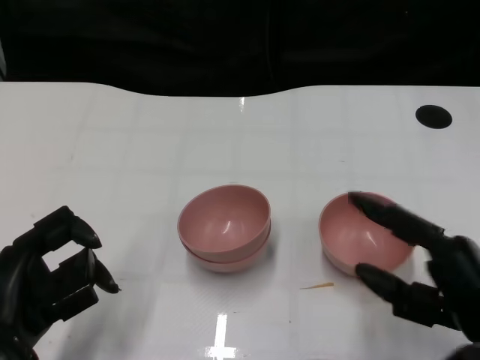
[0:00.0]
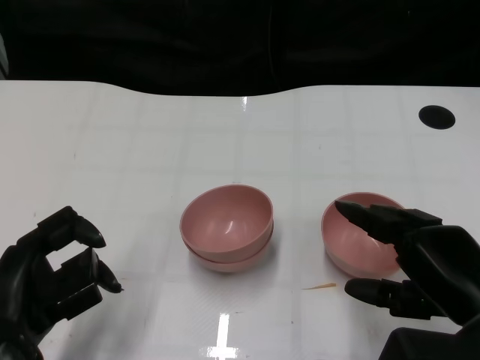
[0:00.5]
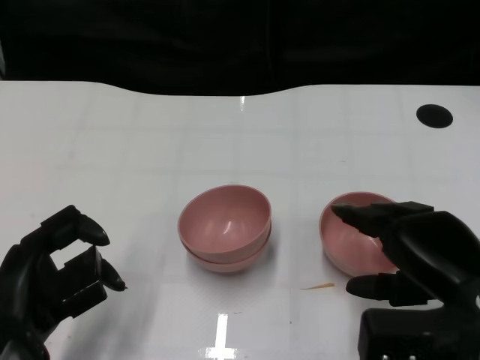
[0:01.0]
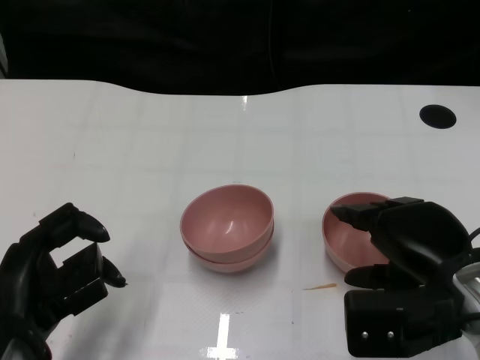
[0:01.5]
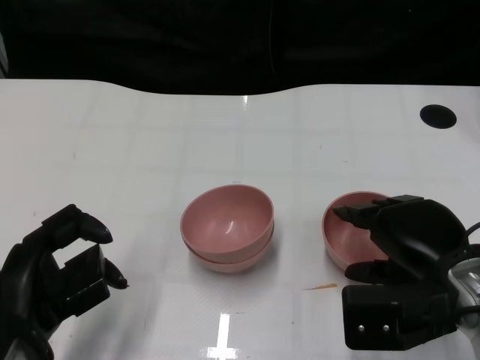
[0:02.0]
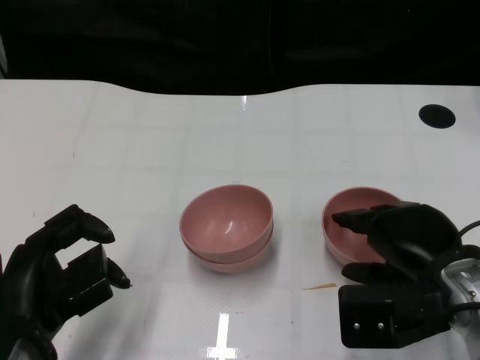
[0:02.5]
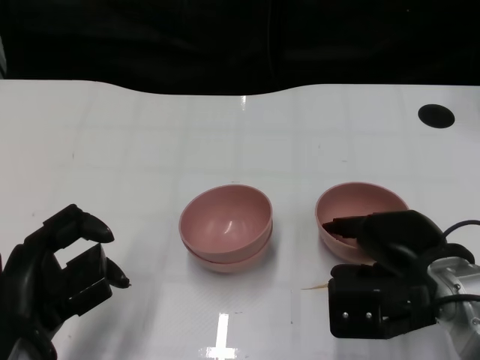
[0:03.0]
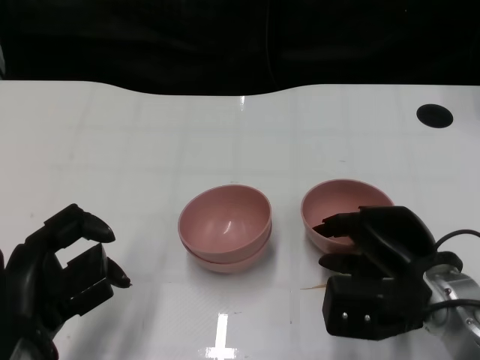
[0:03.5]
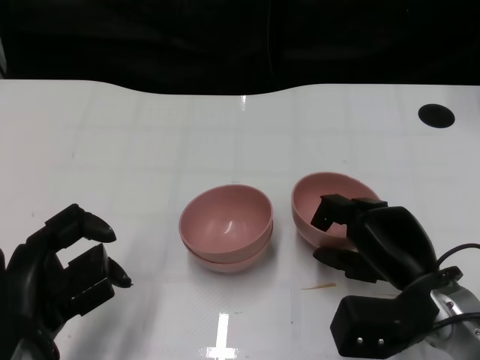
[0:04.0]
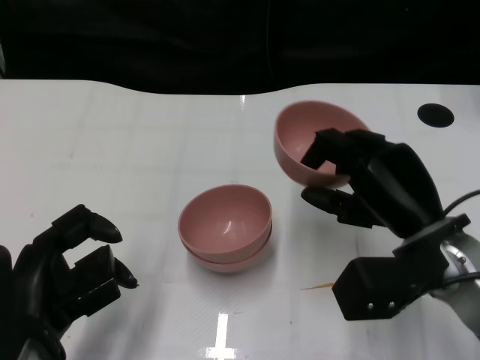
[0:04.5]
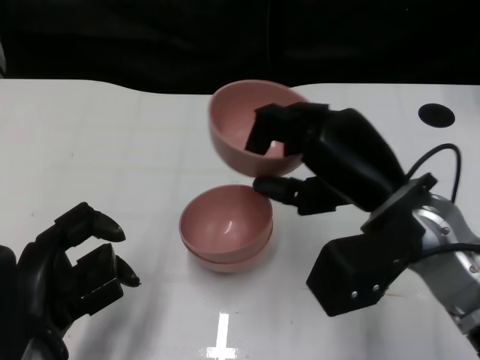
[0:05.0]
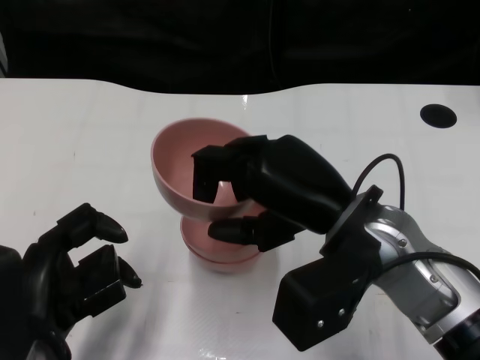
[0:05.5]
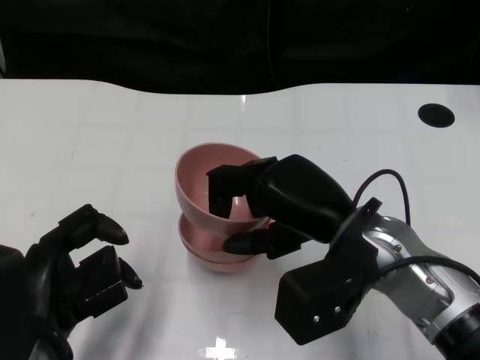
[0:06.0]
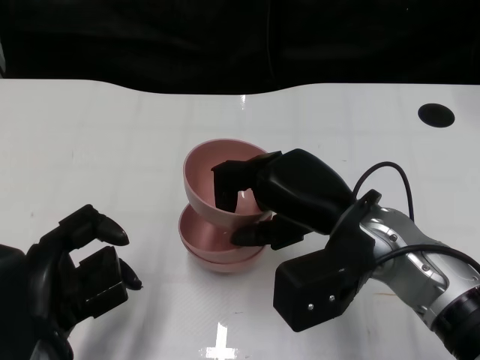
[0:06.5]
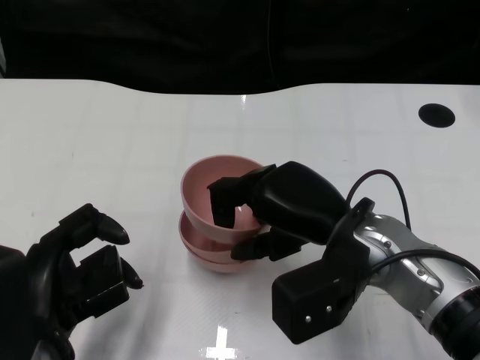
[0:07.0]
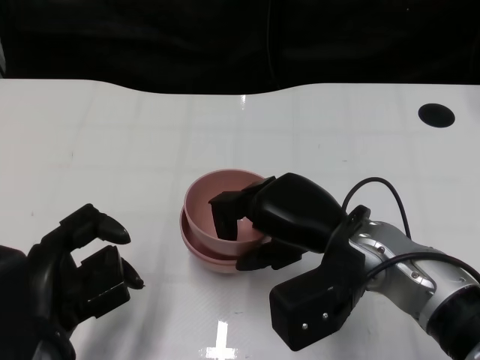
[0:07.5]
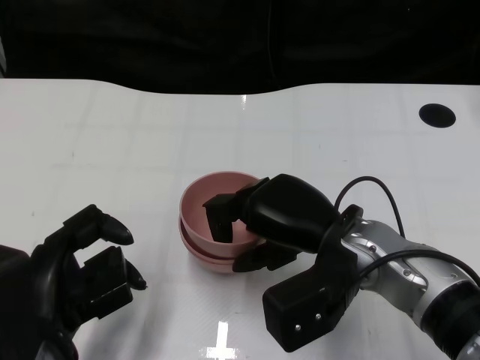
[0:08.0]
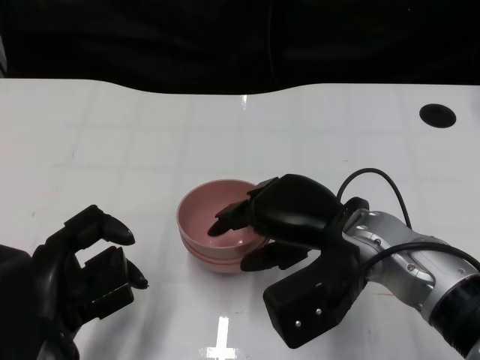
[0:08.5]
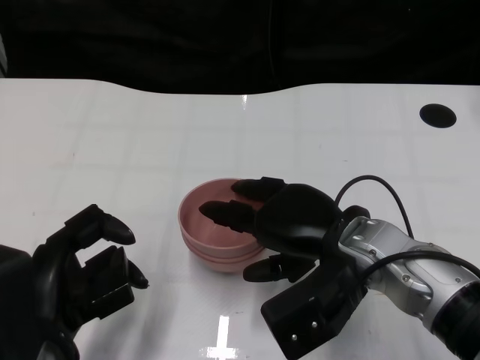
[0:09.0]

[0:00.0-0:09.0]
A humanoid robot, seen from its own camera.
Task of the whole recording: Pick up the bowl on one side of the table and place it on top of the middle bowl, then pick up the bowl on the other side of the table and place it on top of the middle bowls.
Step, 0:00.0 to 0:04.0: Grasp the bowl on the right with the right gripper.
Step, 0:04.5 to 0:09.0: Place the bowl on the right onto the bowl in the middle with right gripper.
0:00.0 to 0:02.0: The right hand travels forward by roughly 5 cm.
0:04.5 to 0:07.0: The right hand heads to the left, covering some 5 cm.

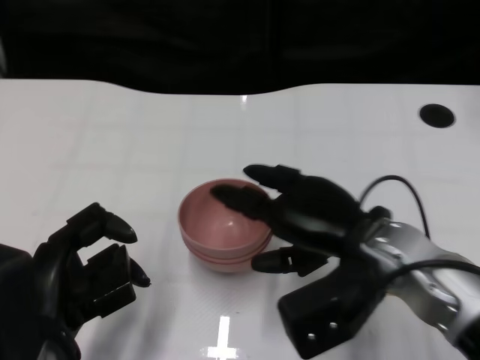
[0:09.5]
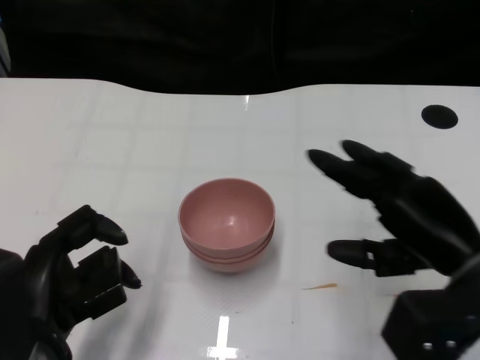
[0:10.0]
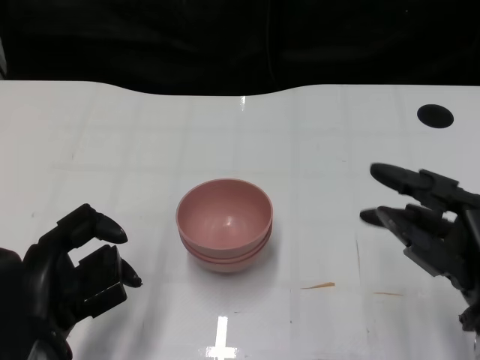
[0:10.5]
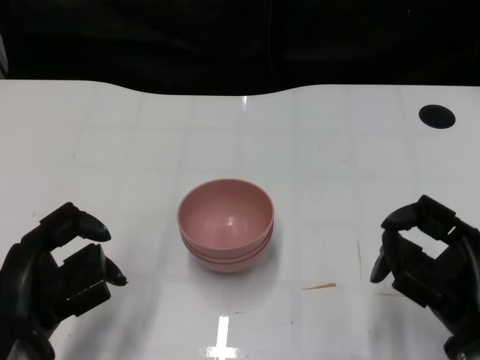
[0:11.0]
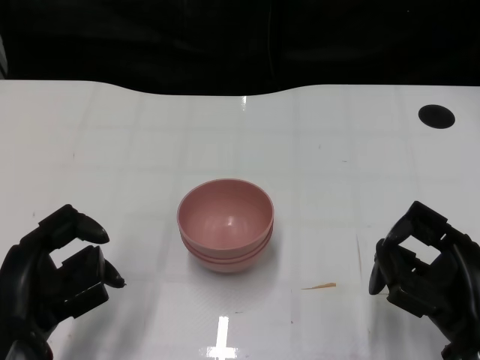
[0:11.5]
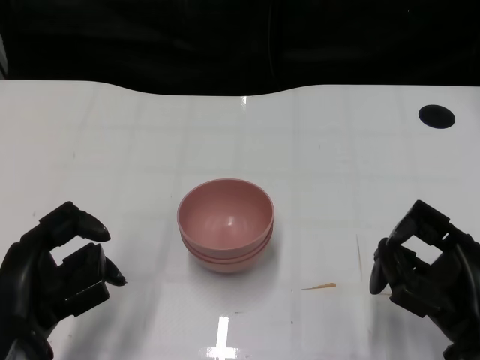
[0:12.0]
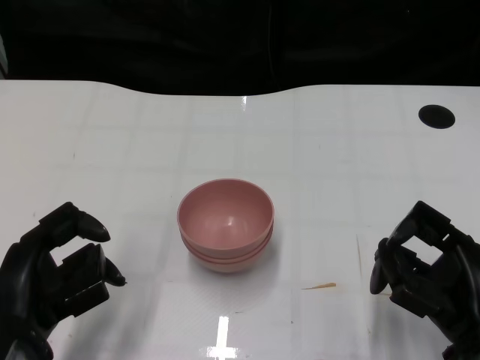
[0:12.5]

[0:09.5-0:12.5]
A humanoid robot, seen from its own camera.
Task of the whole recording: Pick up the bowl on one side of the table and place it on top of the middle bowl, then pick up the bowl on the other side of the table and place it on top of the middle bowls.
0:09.5 to 0:11.0: The right hand is displaced to the right and backward by approximately 15 cm.
0:11.0 to 0:12.5: The hands make only small movements.

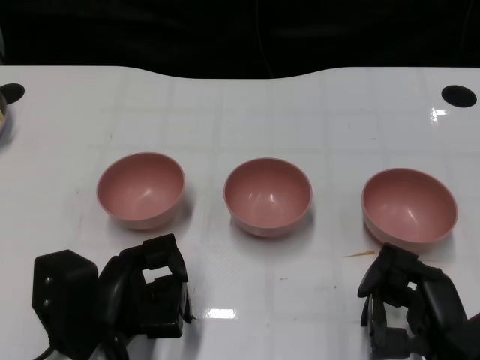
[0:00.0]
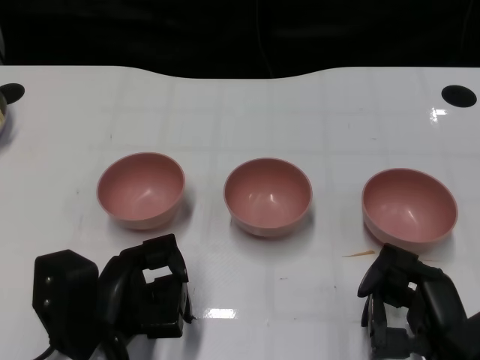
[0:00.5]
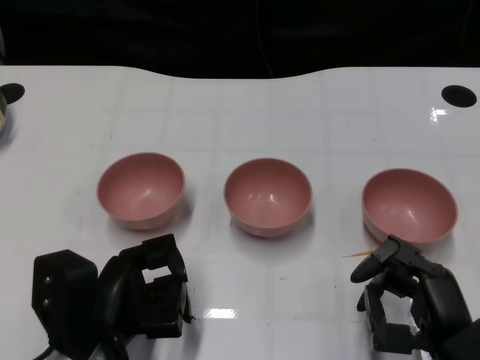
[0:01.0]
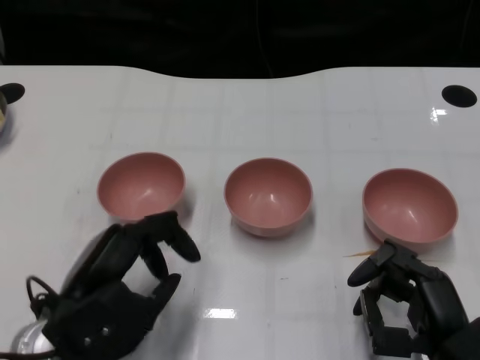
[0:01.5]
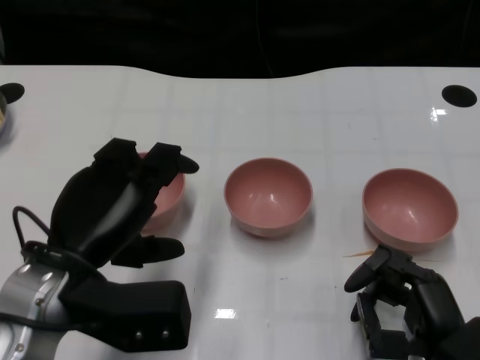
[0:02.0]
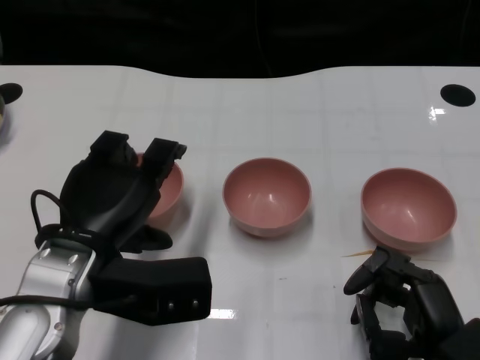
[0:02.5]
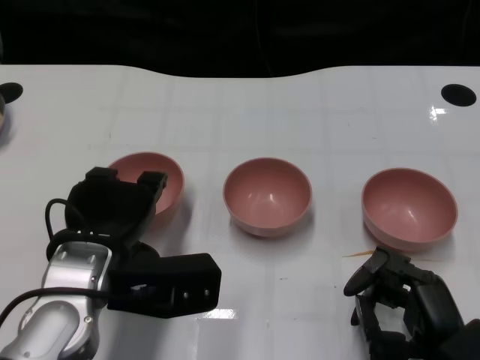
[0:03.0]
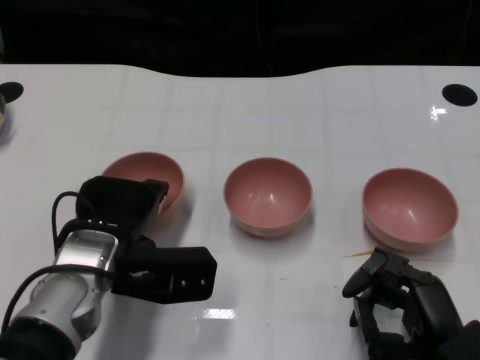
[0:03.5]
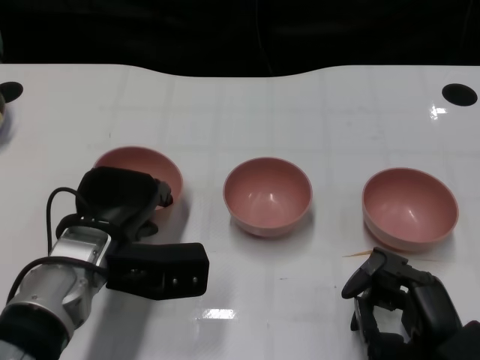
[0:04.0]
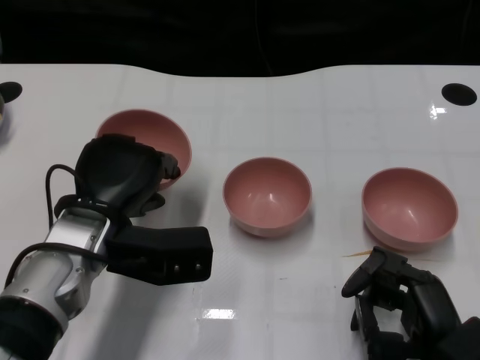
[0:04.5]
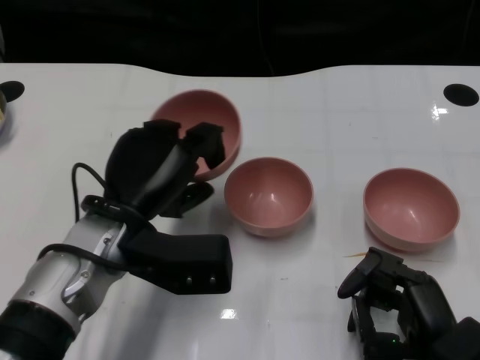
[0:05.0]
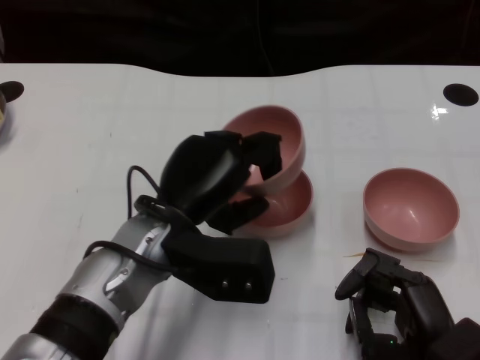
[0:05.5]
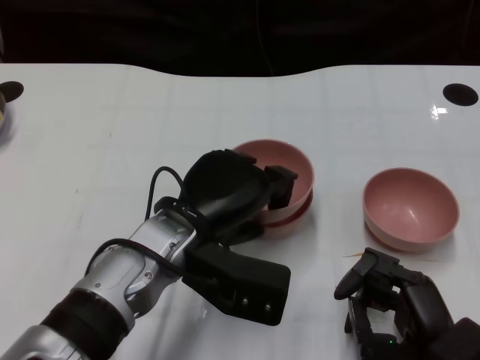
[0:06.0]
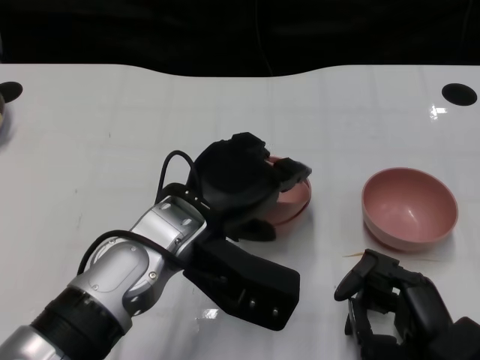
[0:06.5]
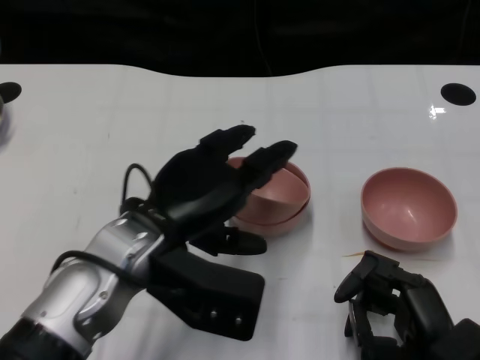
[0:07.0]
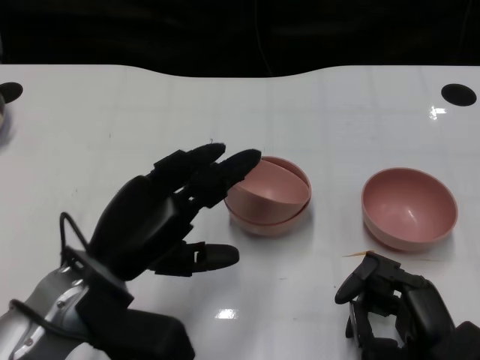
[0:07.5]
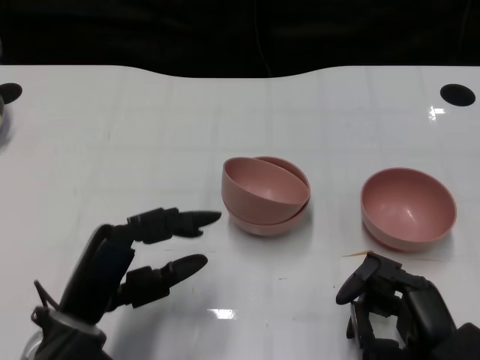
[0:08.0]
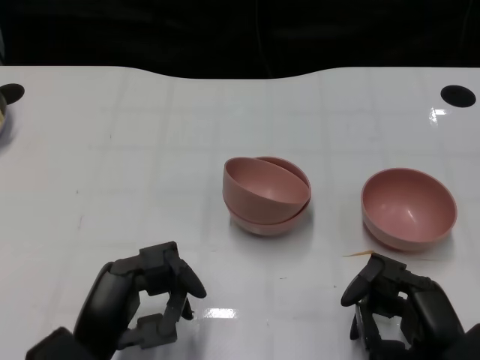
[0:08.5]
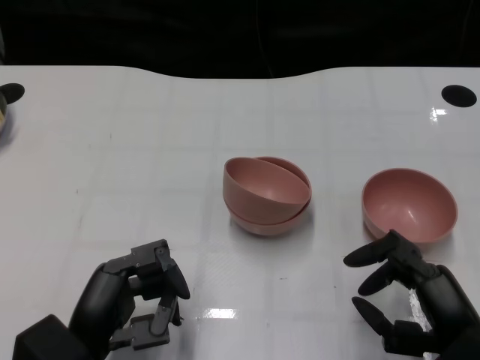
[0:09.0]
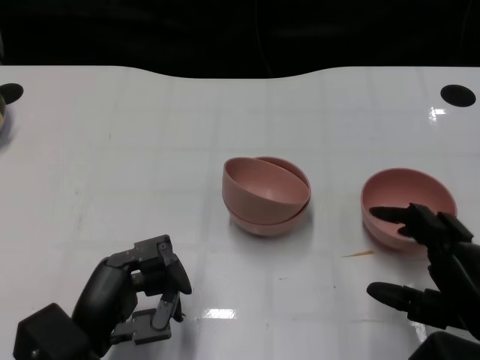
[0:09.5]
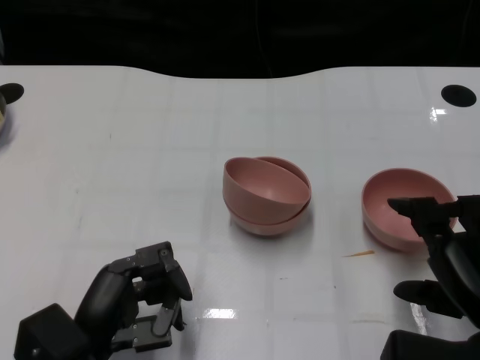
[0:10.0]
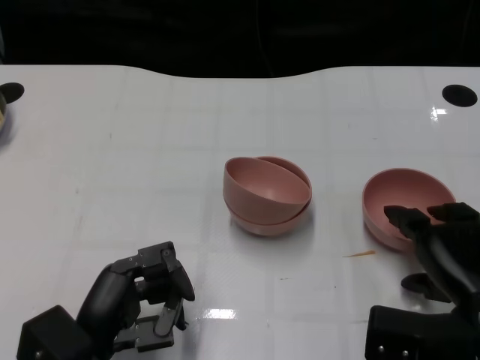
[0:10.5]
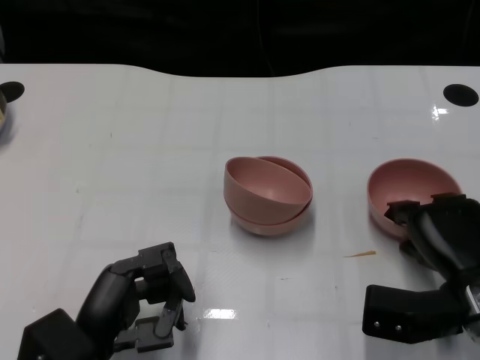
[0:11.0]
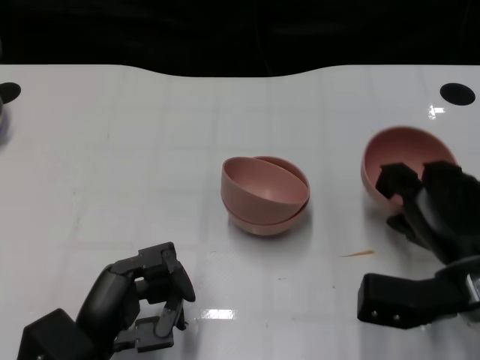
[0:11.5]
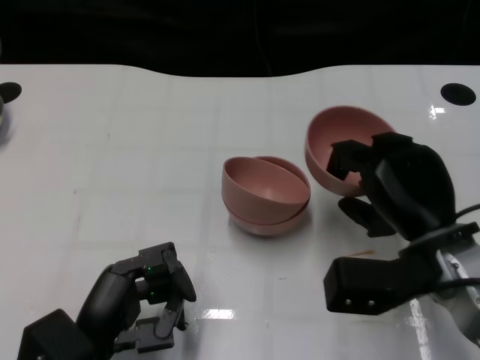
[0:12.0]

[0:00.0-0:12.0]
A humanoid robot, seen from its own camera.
Task of the whole recording: Pick up the bowl on one side of the table and place it on top of the middle bowl, then pick up the bowl on the other side of the table and place it on top of the middle bowls.
Step, 0:01.5 to 0:04.0: Grasp the bowl on the left with the left gripper.
Step, 0:04.5 to 0:07.0: Place the bowl on the left onto the bowl in the middle with left gripper.
Step, 0:07.5 to 0:11.0: Grasp the bowl on the right with the right gripper.
0:02.0 to 0:04.0: The left hand shifts some 5 cm forward.
0:04.0 to 0:06.0: The left hand goes roughly 10 cm to the right.
0:06.0 to 0:08.0: The left hand moves to the left and backward, some 10 cm.
0:08.0 to 0:10.0: The right hand goes approximately 5 cm upward.
0:10.0 to 0:12.0: The right hand goes roughly 10 cm forward and to the left.

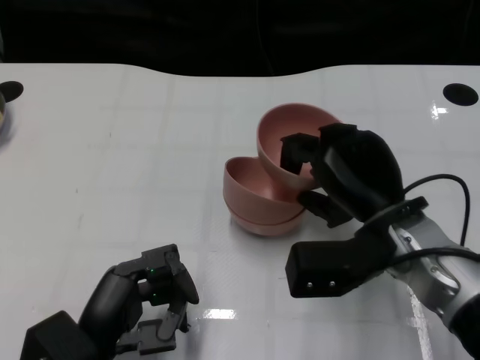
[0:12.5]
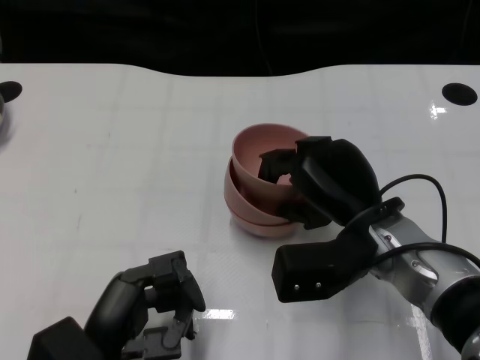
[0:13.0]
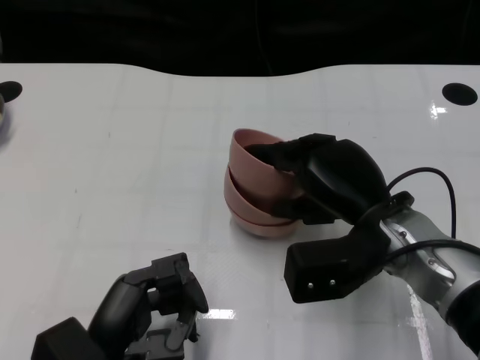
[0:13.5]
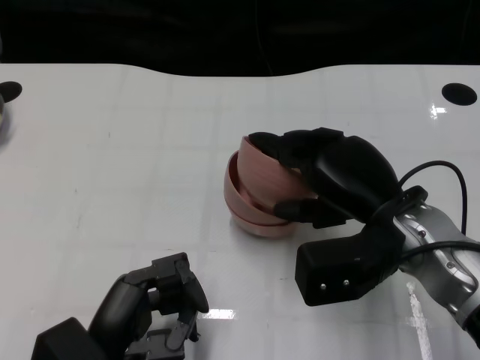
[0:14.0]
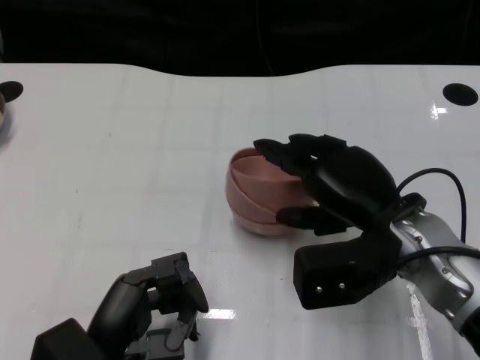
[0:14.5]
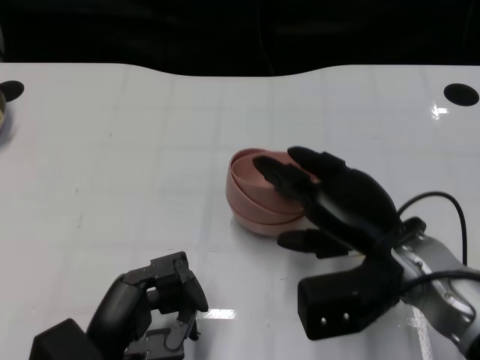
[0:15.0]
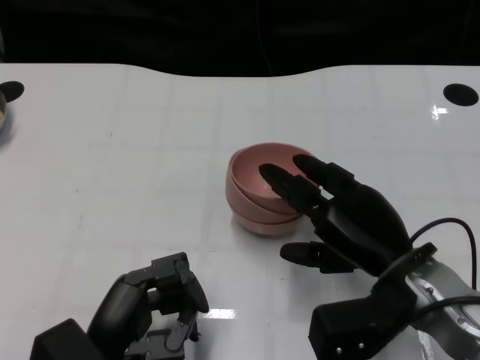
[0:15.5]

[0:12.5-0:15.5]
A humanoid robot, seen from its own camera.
Task of the whole recording: Pick up the bowl on one side of the table and place it on top of the middle bowl, then pick up the bowl on the other side of the table and place it on top of the middle bowls.
0:12.5 to 0:14.0: There are only small adjustments of the hands.
0:14.0 to 0:15.5: The right hand moves some 5 cm.
